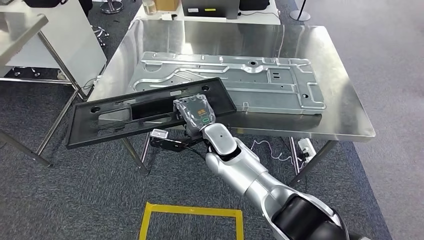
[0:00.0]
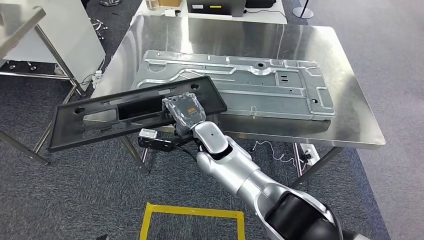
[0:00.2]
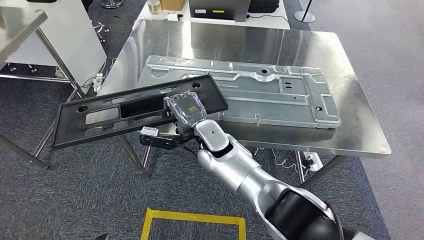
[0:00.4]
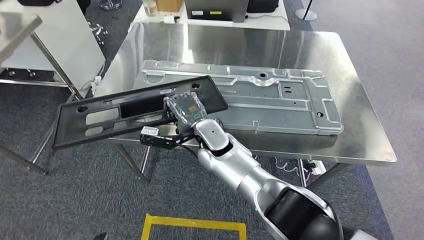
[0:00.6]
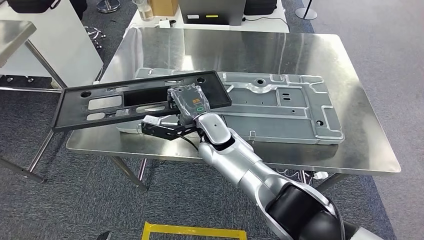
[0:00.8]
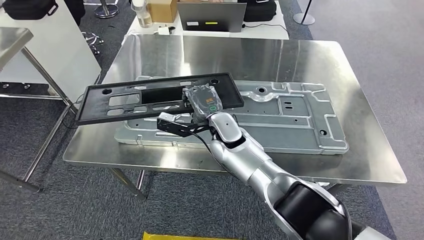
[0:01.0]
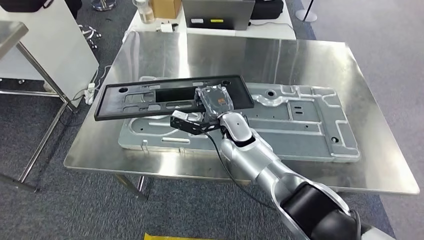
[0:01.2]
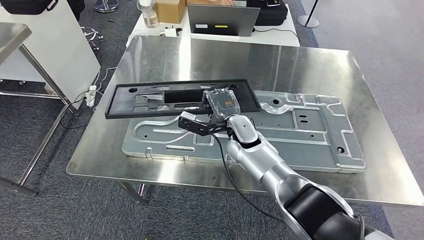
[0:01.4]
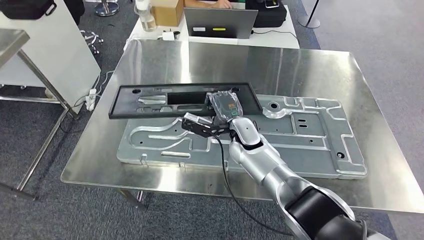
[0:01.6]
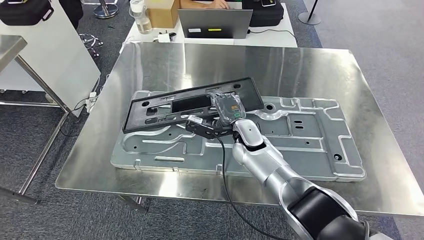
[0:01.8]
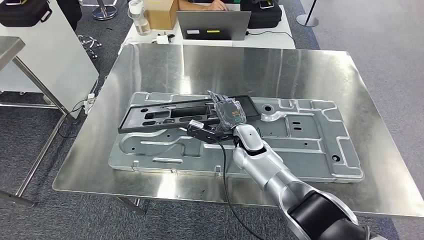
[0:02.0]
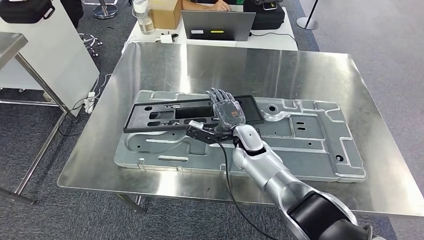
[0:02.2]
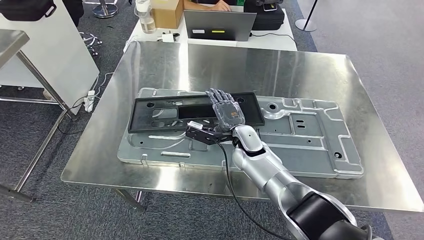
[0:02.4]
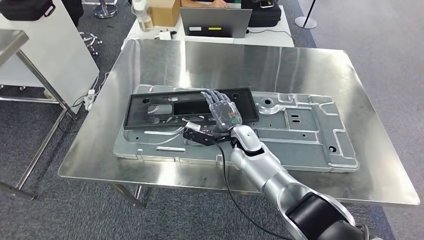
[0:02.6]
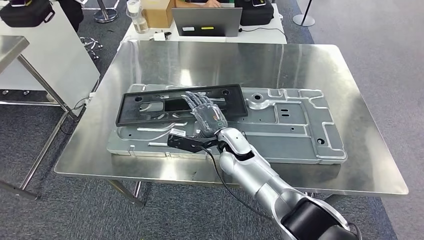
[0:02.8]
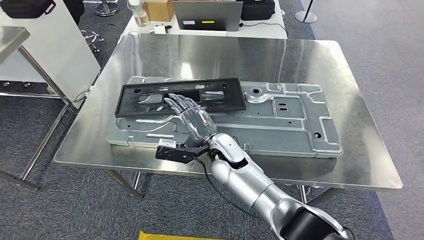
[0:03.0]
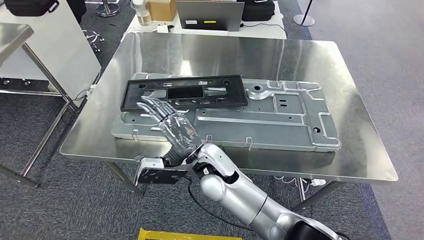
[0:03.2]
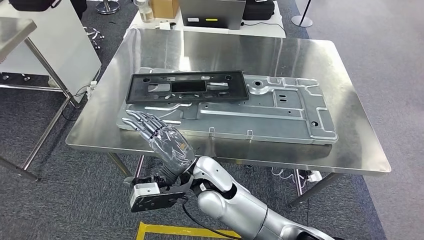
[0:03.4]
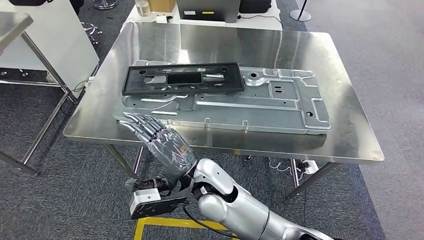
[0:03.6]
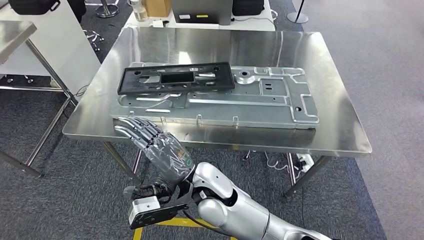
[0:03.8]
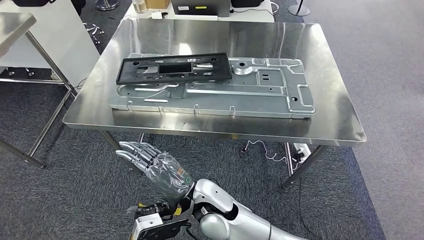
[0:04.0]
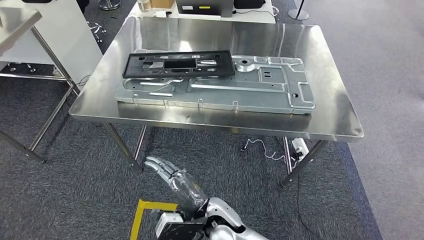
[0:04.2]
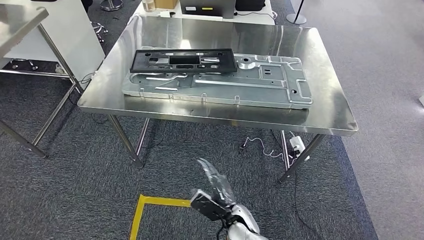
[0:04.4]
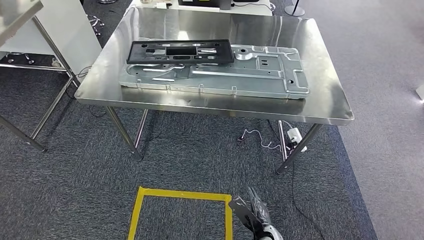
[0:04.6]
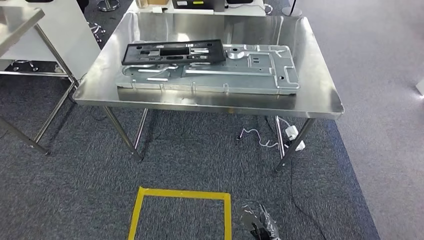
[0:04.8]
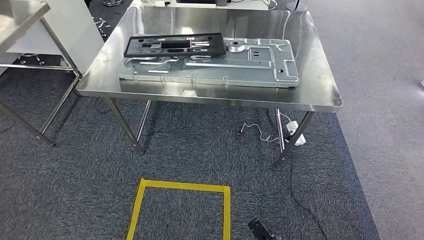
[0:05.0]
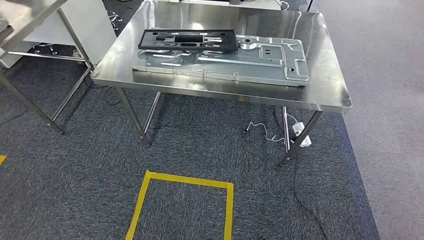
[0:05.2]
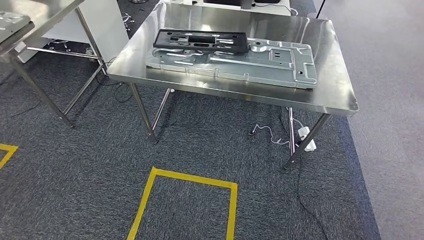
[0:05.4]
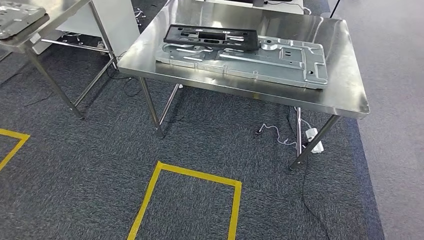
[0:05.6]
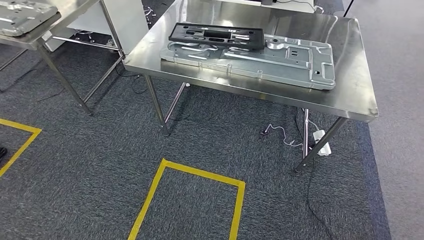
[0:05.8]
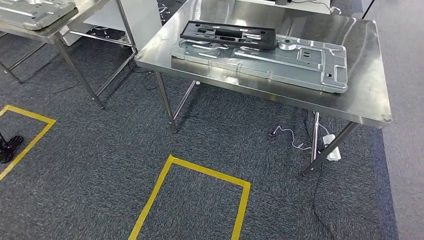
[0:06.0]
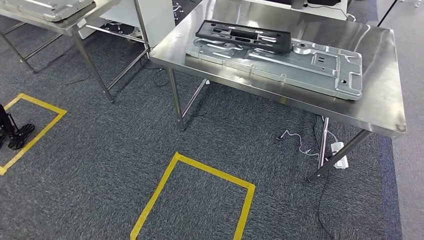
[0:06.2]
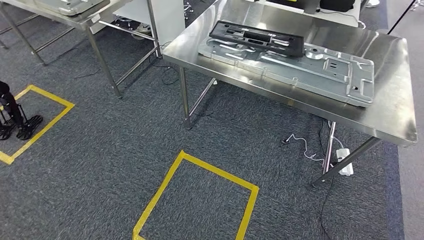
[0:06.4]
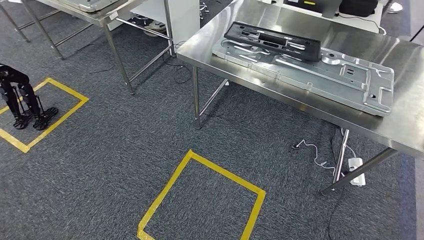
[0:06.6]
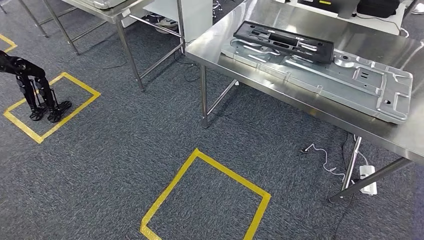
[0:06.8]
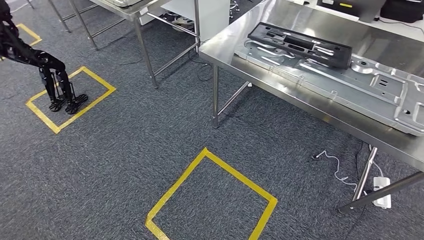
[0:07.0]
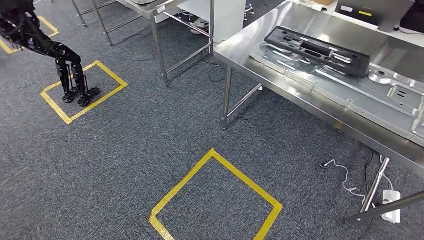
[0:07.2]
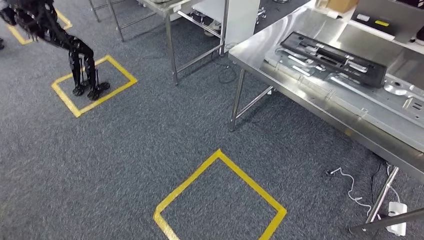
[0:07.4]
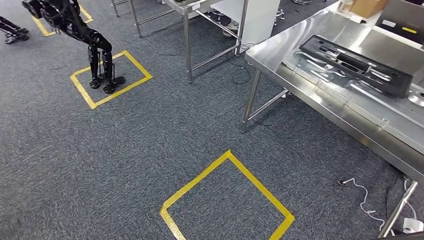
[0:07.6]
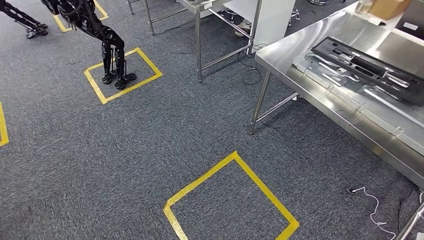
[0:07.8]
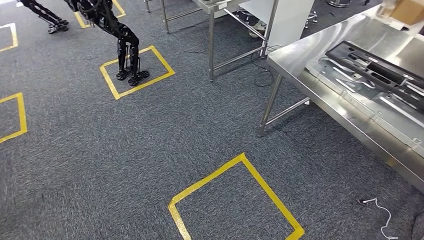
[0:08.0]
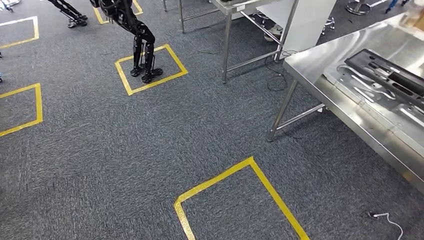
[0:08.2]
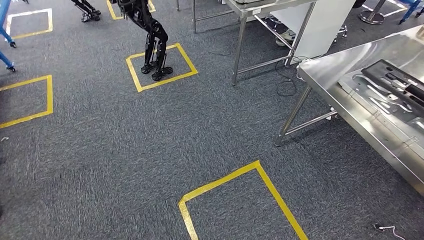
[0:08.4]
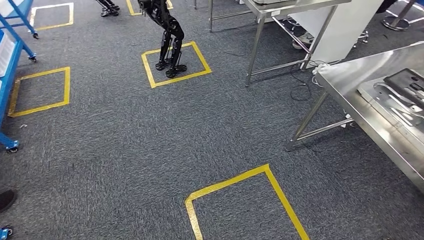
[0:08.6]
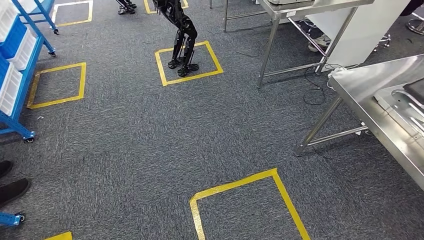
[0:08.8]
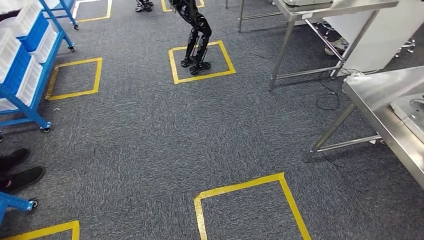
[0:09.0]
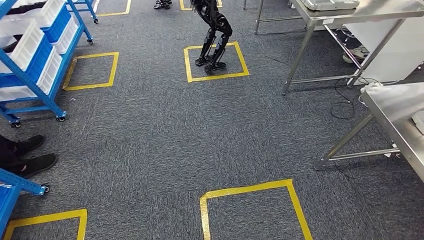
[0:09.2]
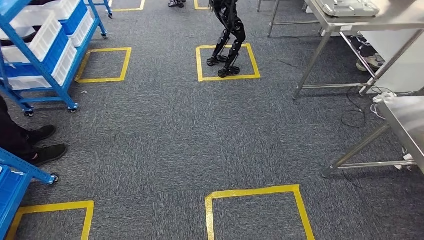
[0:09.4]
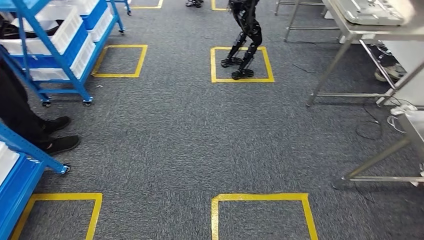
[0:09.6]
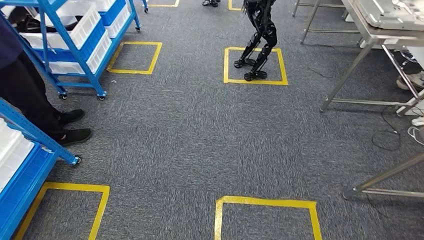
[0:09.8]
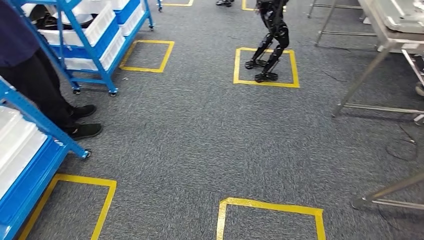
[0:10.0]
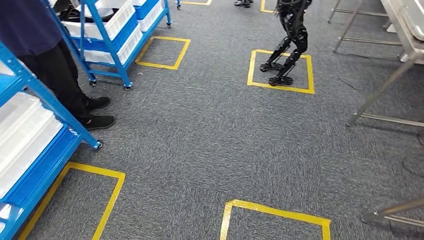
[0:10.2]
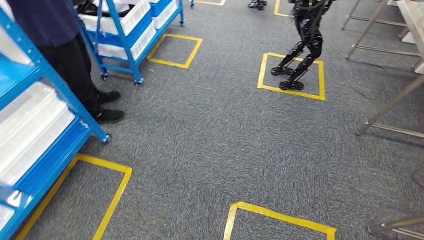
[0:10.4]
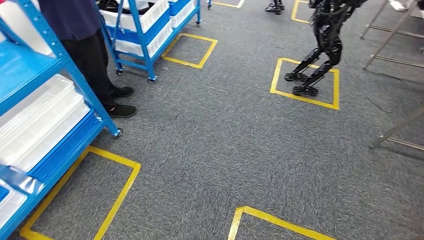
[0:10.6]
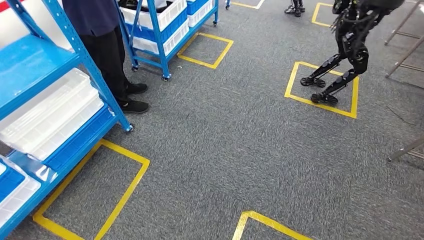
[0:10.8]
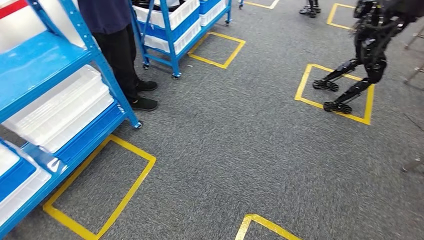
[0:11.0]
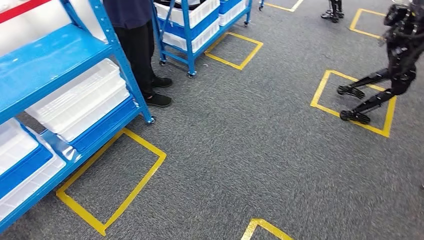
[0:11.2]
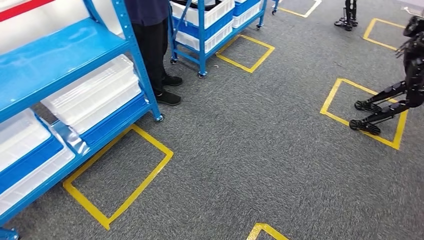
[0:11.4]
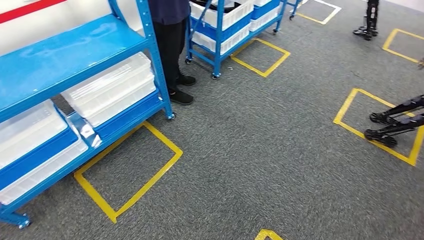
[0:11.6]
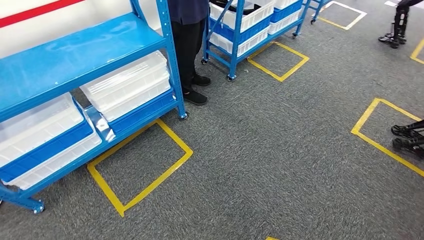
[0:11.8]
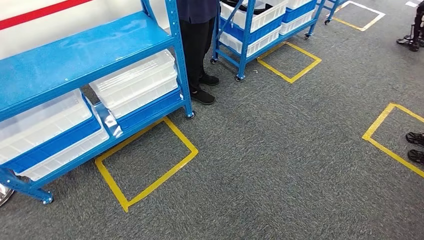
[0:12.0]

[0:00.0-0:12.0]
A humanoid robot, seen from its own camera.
Step, 0:00.0 to 0:05.8: Insert the large material into the corresponding slot on the workbench.

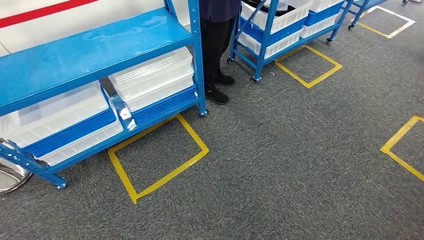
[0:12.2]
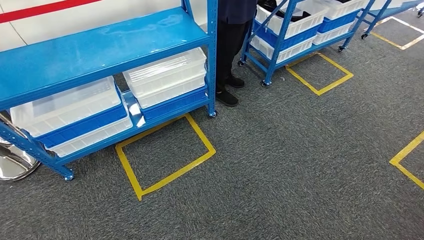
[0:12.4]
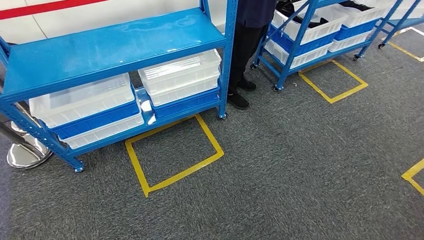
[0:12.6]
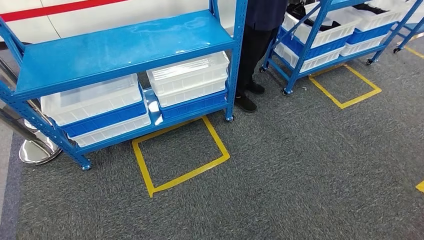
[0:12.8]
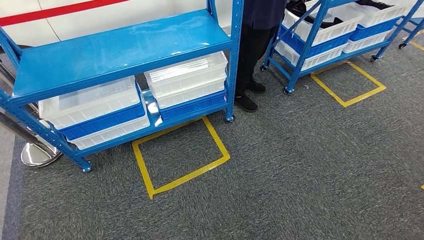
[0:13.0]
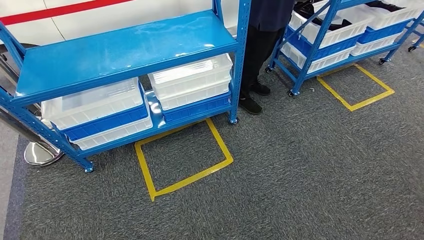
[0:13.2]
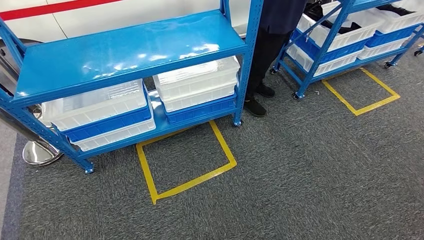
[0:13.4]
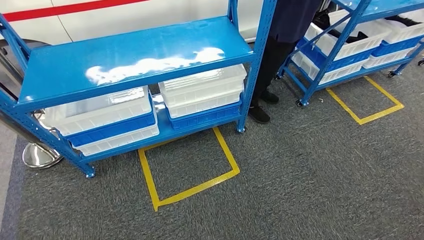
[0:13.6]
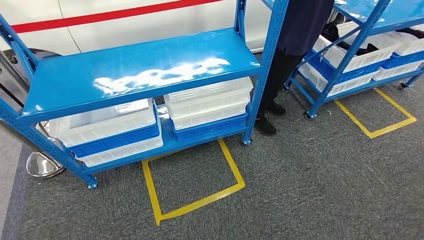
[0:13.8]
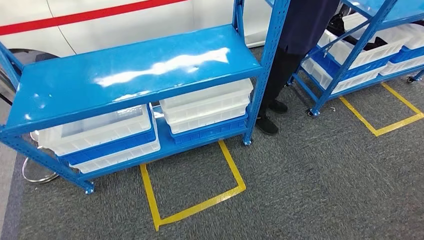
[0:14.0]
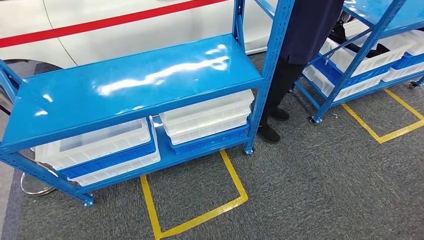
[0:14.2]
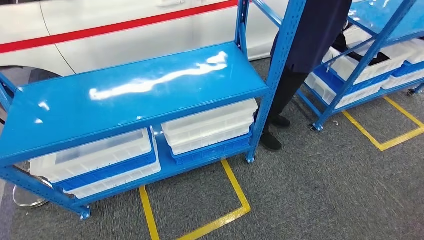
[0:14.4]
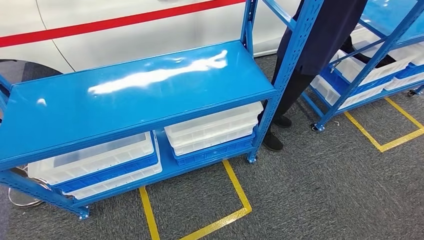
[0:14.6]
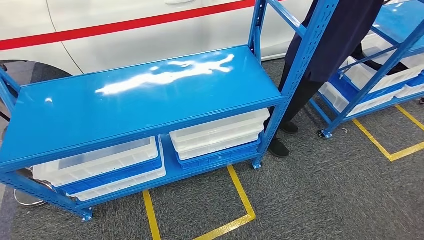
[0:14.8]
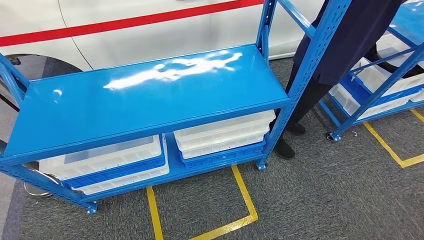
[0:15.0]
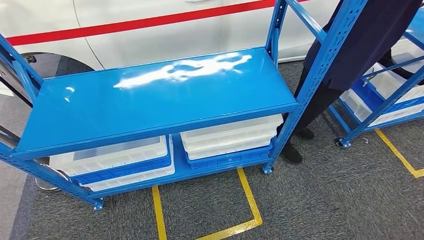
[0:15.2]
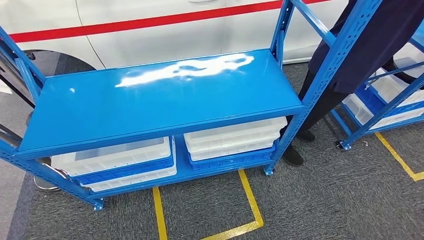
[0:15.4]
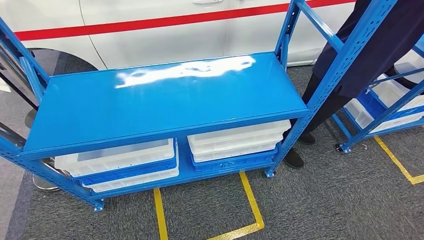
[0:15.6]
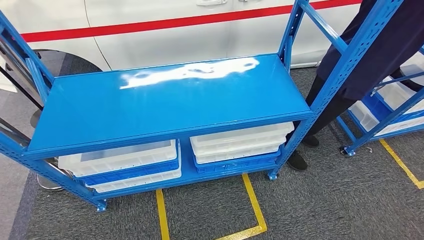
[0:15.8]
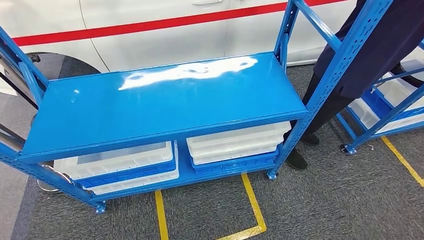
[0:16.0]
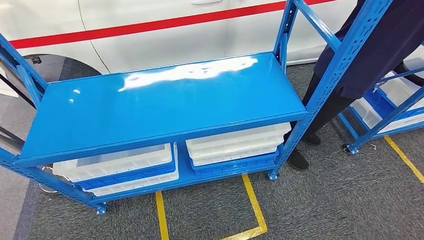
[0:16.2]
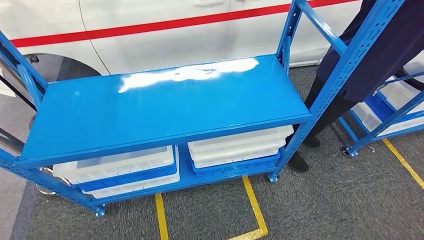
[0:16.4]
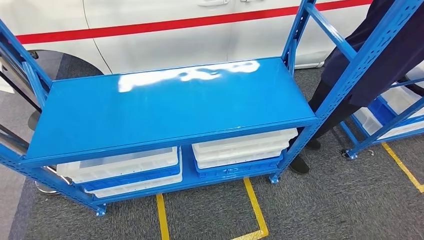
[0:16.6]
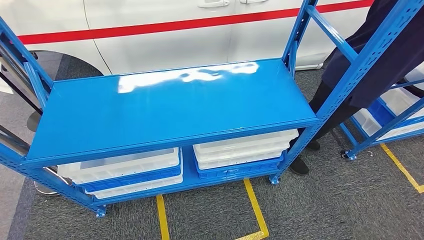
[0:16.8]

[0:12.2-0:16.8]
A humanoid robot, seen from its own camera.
Step, 0:12.2 to 0:16.8: Move to the initial position of the shelf.
